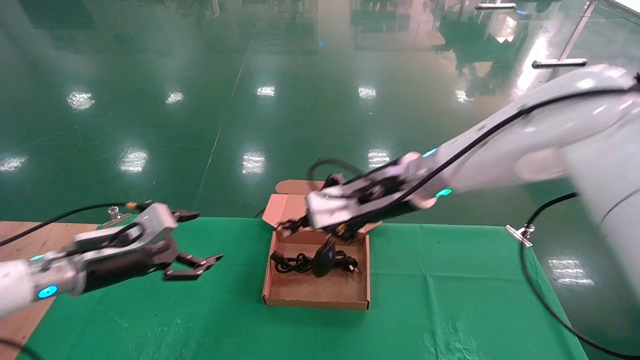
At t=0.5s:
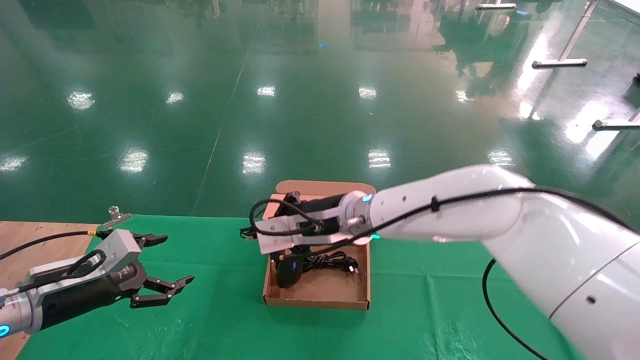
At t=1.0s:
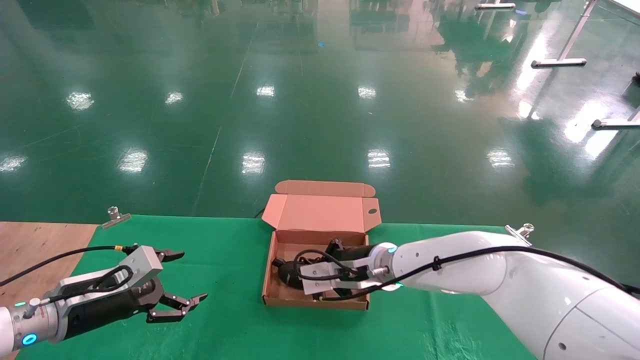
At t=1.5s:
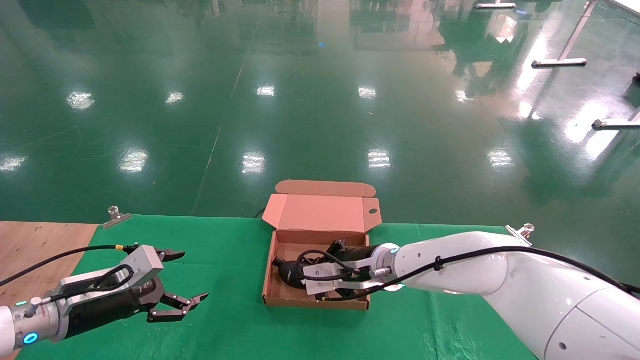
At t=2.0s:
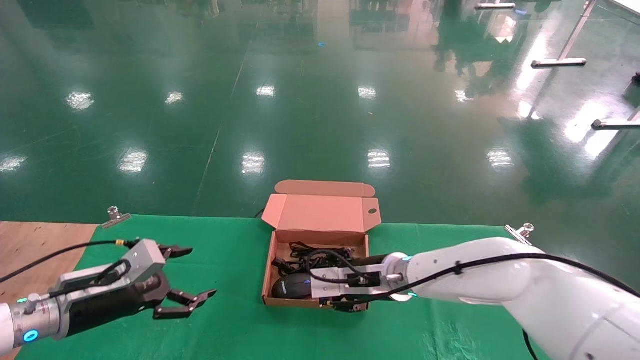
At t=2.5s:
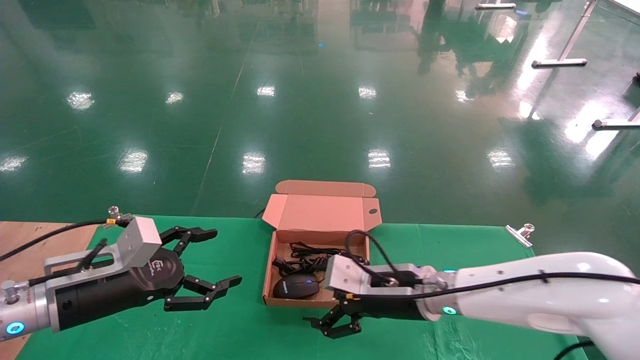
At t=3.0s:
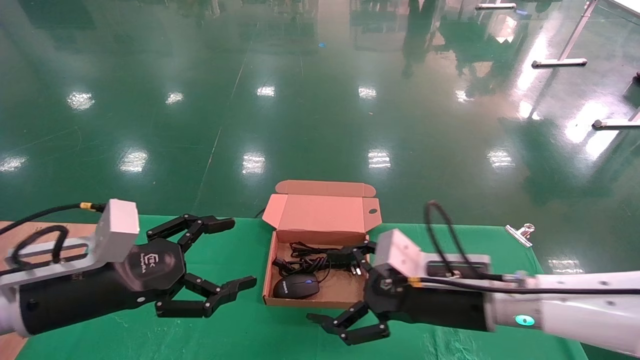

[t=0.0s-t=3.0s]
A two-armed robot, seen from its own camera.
t=0.0s to t=1.5s: The right gripper heads downward, covering approximately 15 cm. Meanwhile the left gripper heads downward, covering roughly 5 cm.
t=1.5s to t=3.0s: The left gripper is displaced upward, backward and to the right by roughly 15 cm; the right gripper moves backward and to the right, roughly 15 cm, and opens up.
